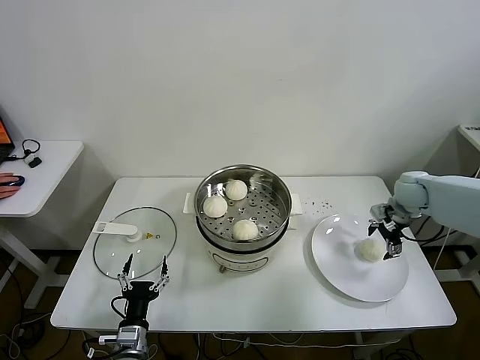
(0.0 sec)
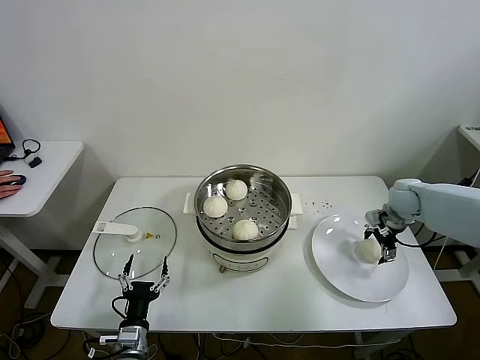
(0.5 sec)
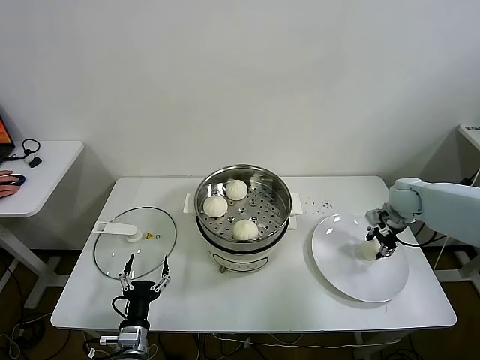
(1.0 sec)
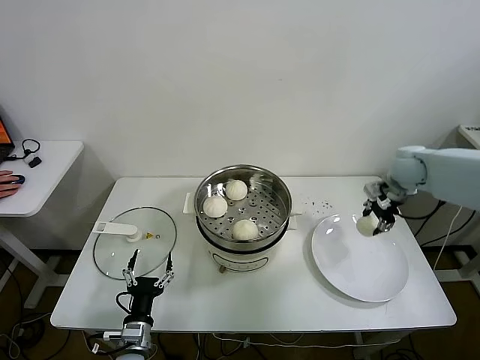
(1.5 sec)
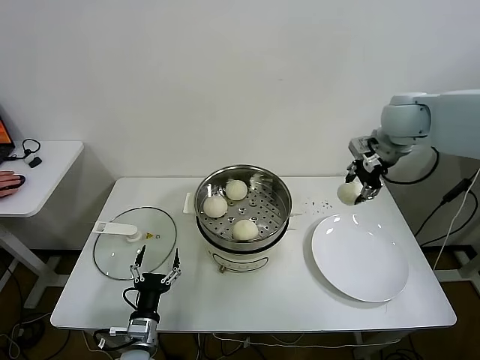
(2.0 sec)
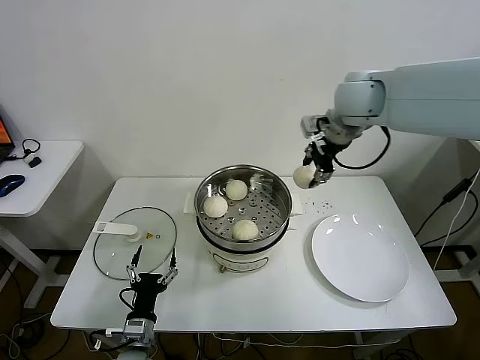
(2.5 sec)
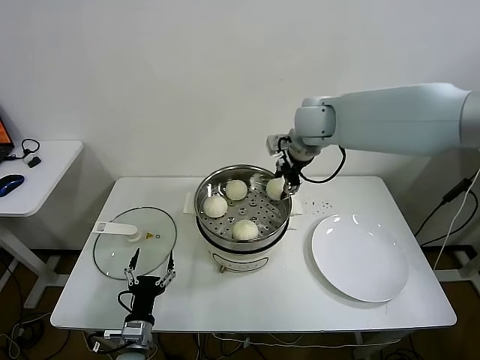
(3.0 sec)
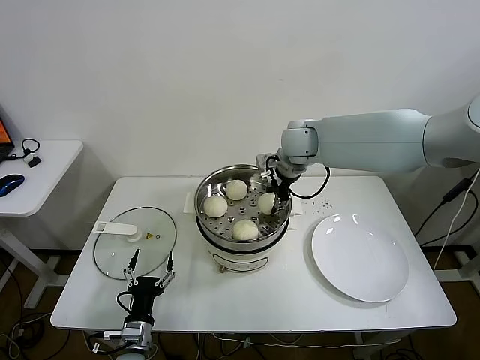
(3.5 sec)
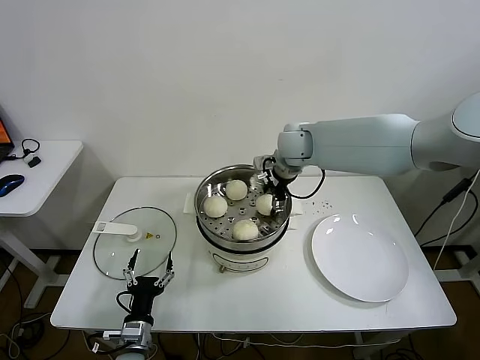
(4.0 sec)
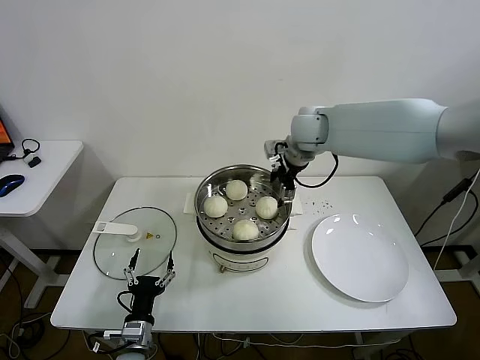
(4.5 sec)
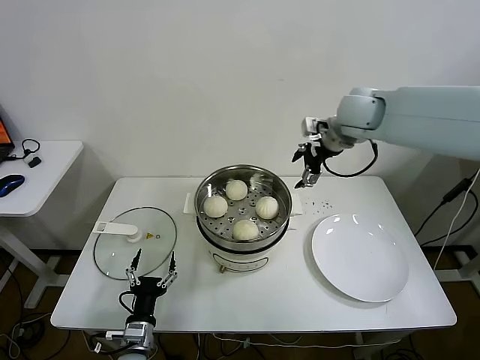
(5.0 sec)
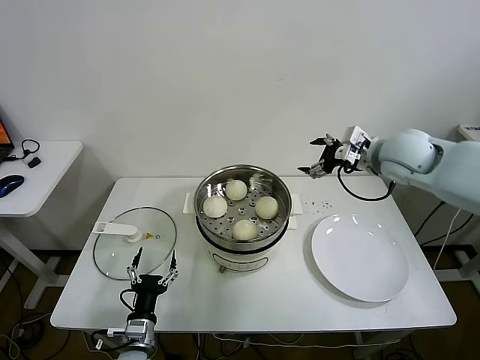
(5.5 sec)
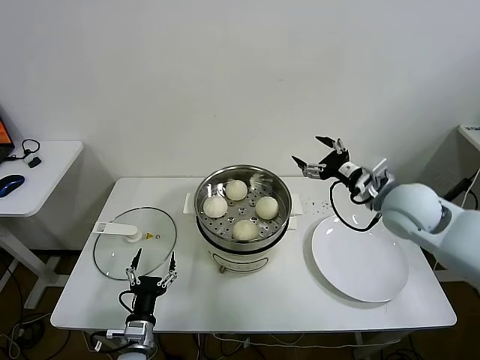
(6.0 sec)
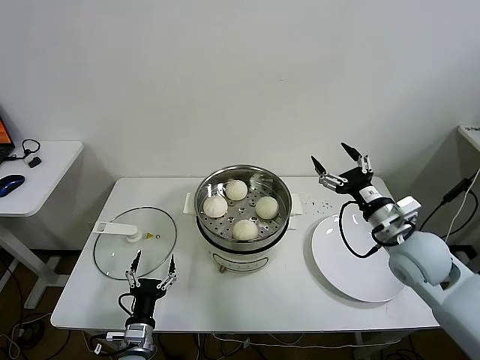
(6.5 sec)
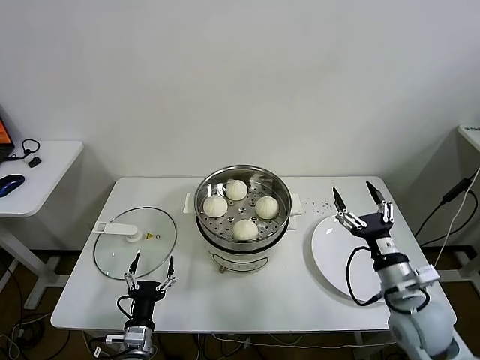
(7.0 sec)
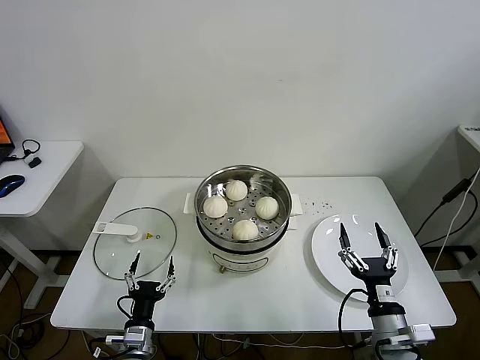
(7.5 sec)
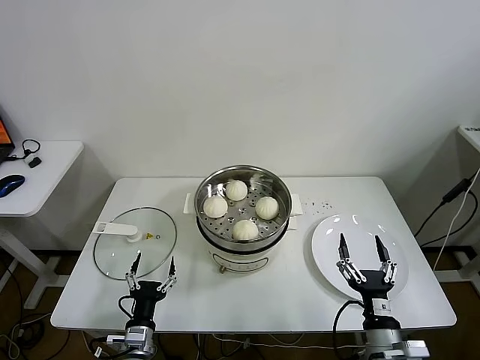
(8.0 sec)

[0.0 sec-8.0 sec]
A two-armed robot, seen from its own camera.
Task of the whole recording: take steamed baozi put them in steamer.
Step, 1.5 sec to 4.0 sec: Place the baozi on the steamer with right gripper.
0.0 sec to 2.0 sec: The right gripper moves upward and to the left, about 25 cm, and closes up.
2.0 sec to 4.0 sec: The right gripper heads to the left and downward, covering roughly 20 cm, and opens.
4.0 sec to 6.0 sec: The right gripper heads to the right and backward, covering some 25 cm, and opens up.
6.0 sec to 8.0 sec: The right gripper is displaced backward and downward by some 35 cm.

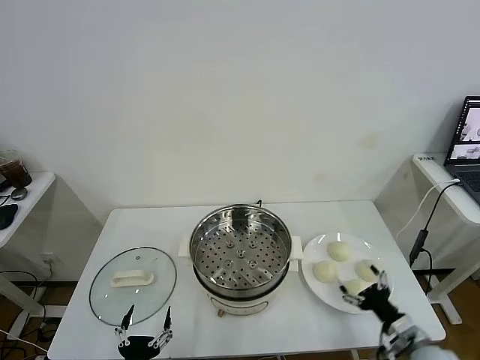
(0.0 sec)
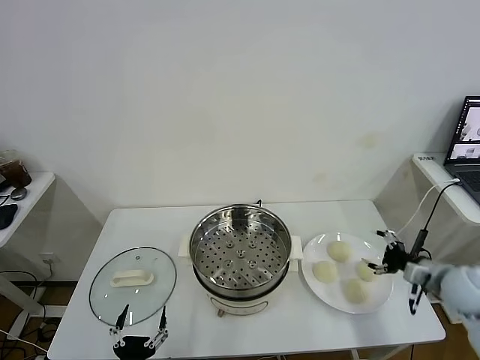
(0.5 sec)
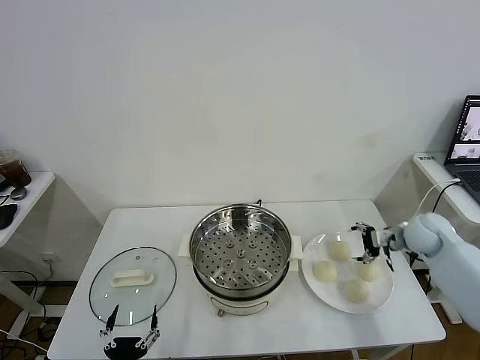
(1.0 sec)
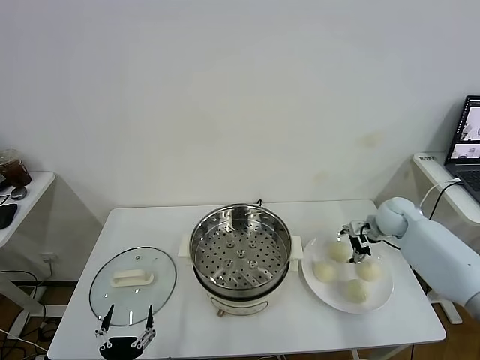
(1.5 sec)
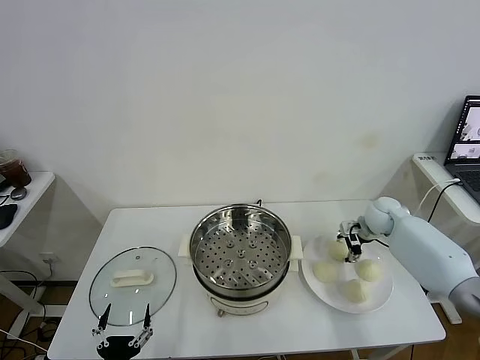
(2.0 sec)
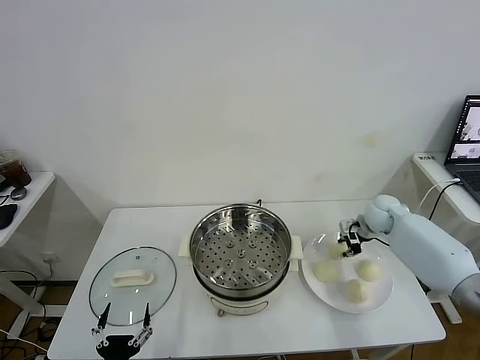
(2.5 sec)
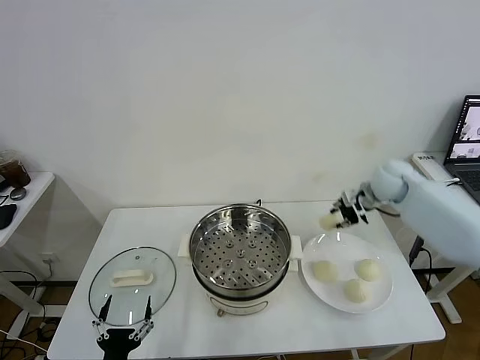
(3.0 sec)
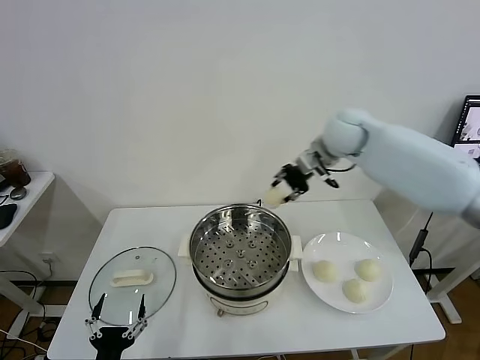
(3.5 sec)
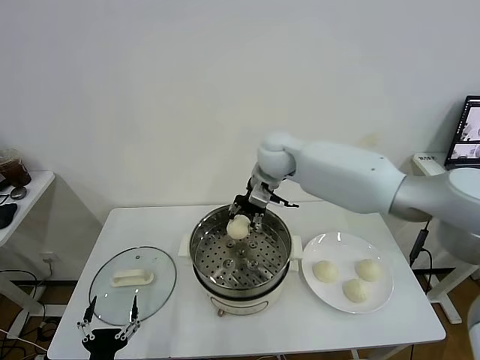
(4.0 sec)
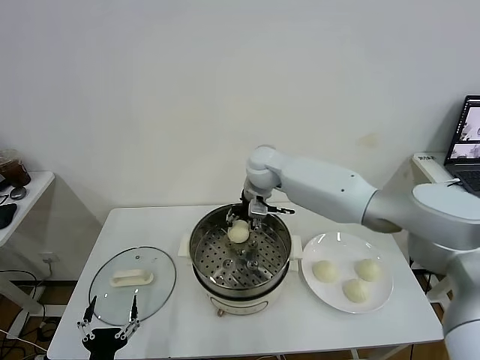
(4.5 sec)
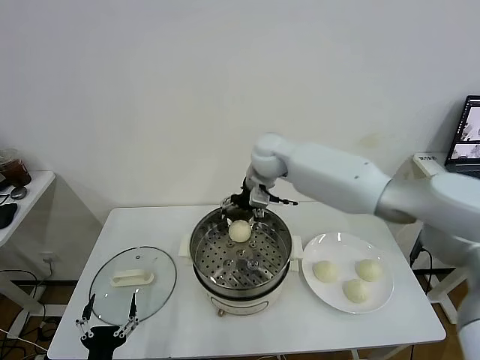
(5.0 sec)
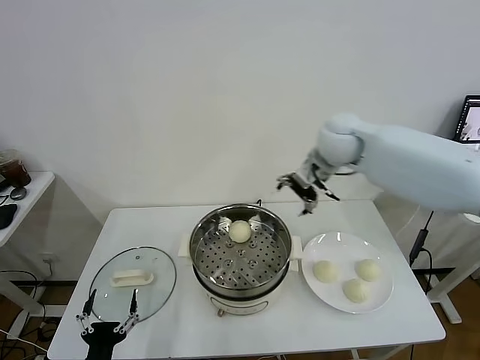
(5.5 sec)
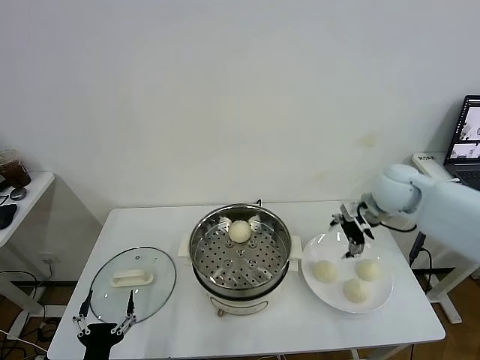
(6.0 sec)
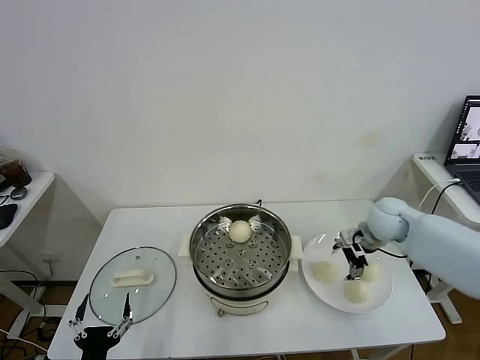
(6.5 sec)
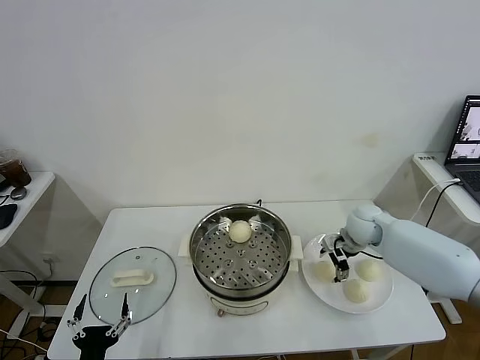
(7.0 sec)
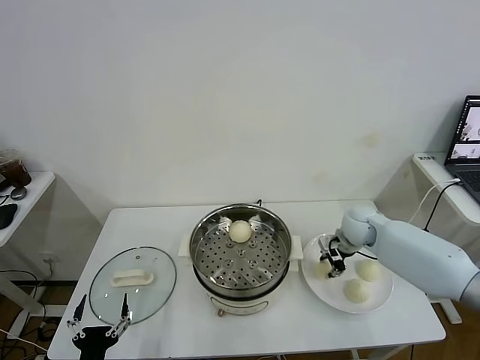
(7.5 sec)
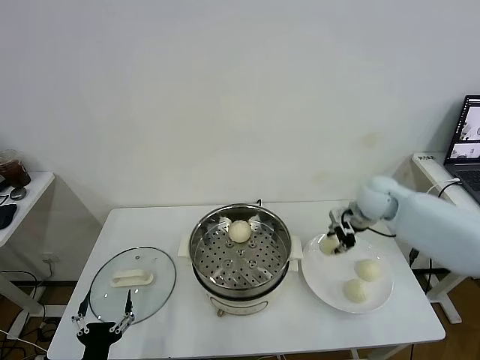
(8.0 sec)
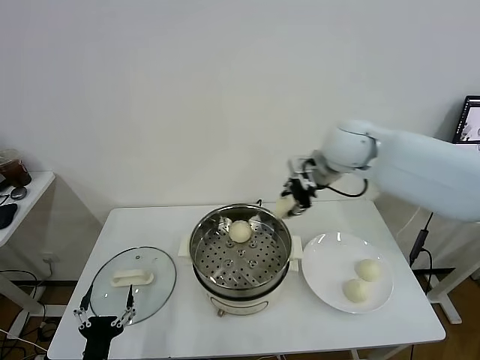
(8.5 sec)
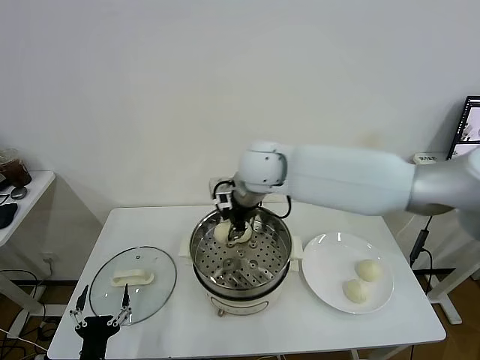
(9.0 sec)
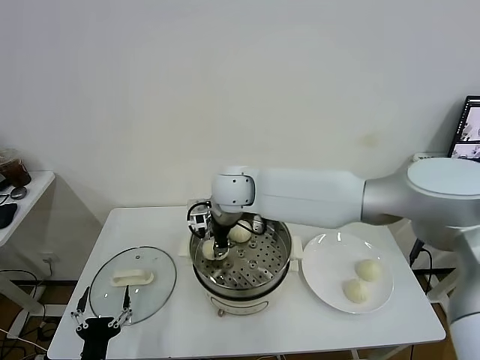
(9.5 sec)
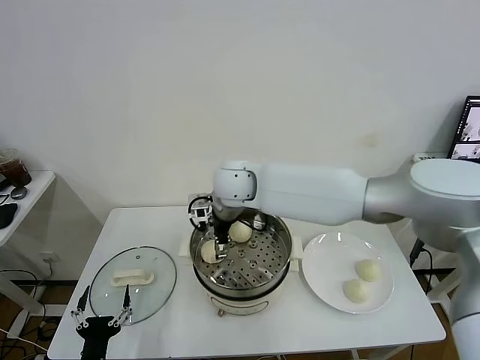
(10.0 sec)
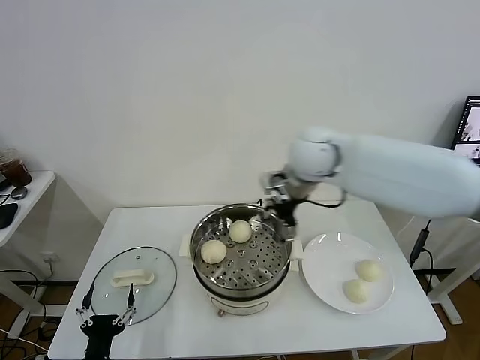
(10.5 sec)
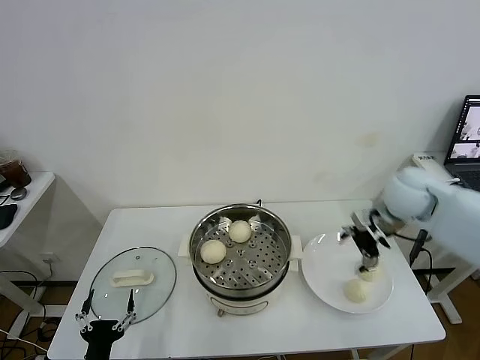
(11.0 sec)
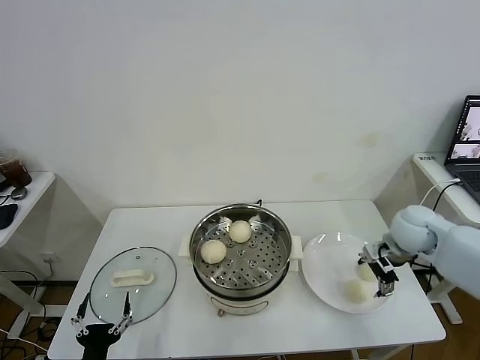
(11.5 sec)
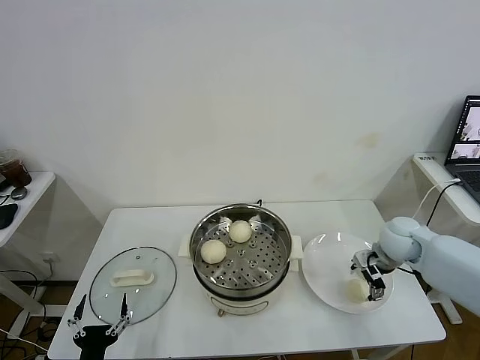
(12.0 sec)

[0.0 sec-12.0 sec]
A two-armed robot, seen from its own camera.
Task of the whole recording: take steamed baozi put them in steamer.
Step, 0.0 sec to 2.0 sec: Grasp the baozi in the plate with right gripper.
Step, 2.5 sec to 4.5 sec: Place the baozi on the steamer with right gripper.
Step, 5.5 sec to 7.5 sec: Grasp the baozi in the plate with right gripper.
Step, 8.0 sec to 10.0 sec: Place the baozi on the steamer with right gripper.
2.0 sec to 4.0 sec: The right gripper moves to the left and upward, some 35 cm, and closes.
4.0 sec to 6.0 sec: The right gripper heads to the right, covering approximately 25 cm, and opens its fingers.
6.0 sec to 8.0 sec: The right gripper moves approximately 15 cm downward and comes back, and closes.
8.0 sec to 10.0 sec: The right gripper shifts some 35 cm to the left, and opens.
10.0 sec to 12.0 sec: The right gripper heads to the right, covering roughly 40 cm.

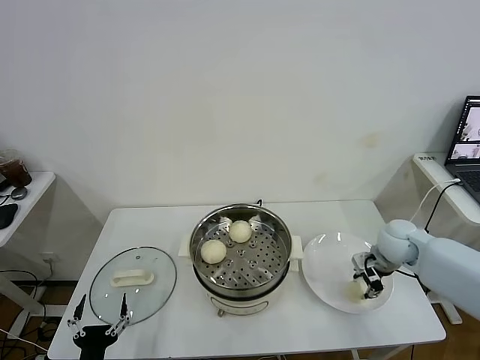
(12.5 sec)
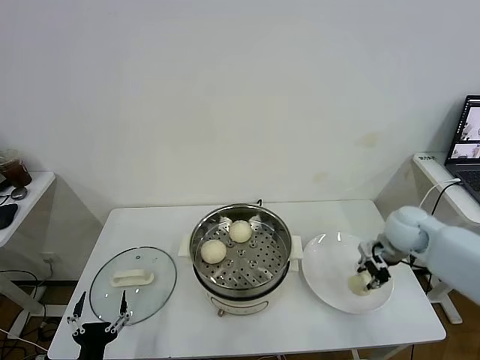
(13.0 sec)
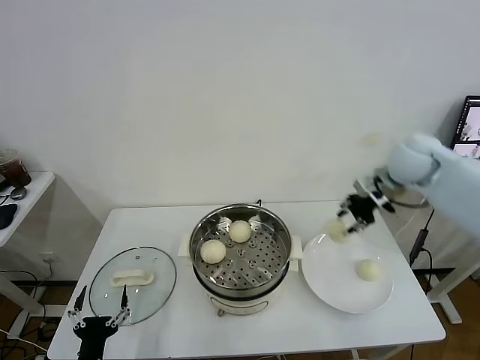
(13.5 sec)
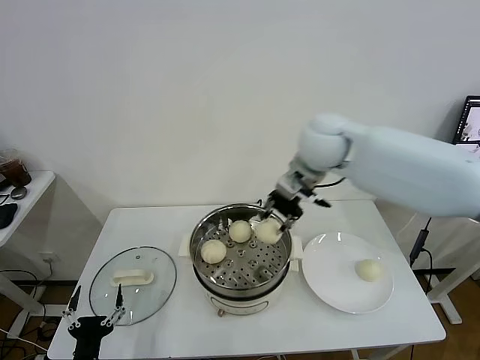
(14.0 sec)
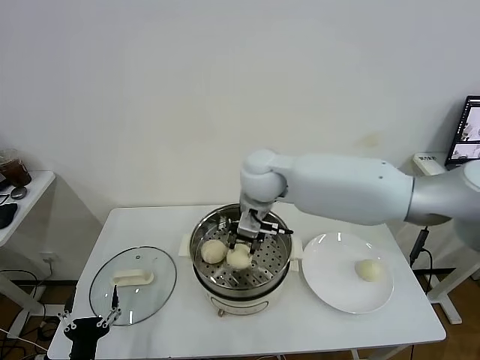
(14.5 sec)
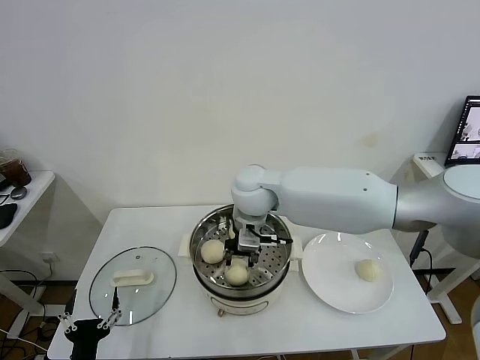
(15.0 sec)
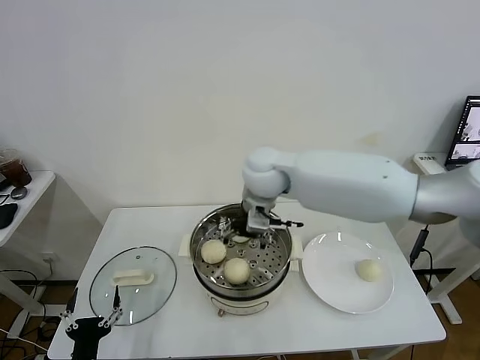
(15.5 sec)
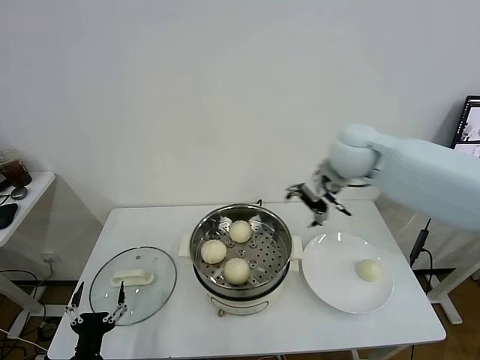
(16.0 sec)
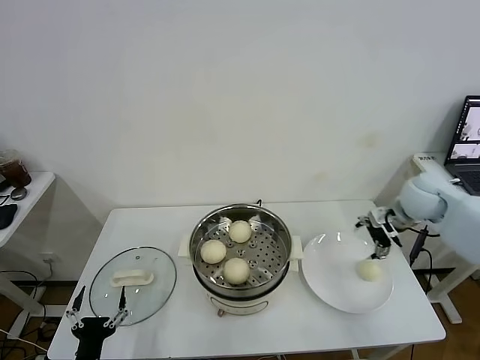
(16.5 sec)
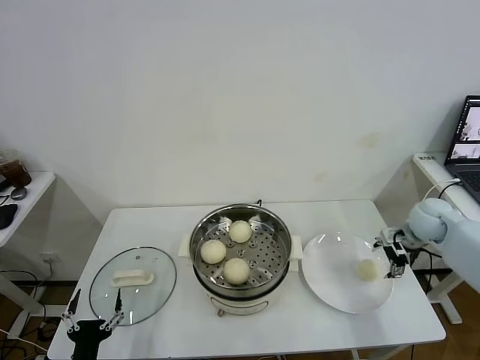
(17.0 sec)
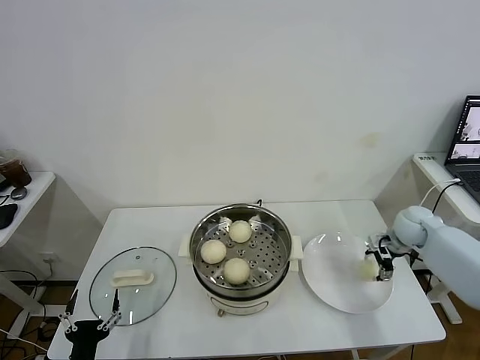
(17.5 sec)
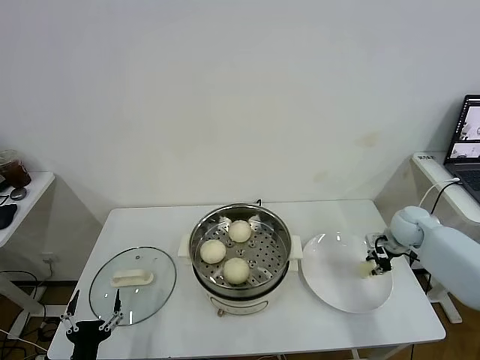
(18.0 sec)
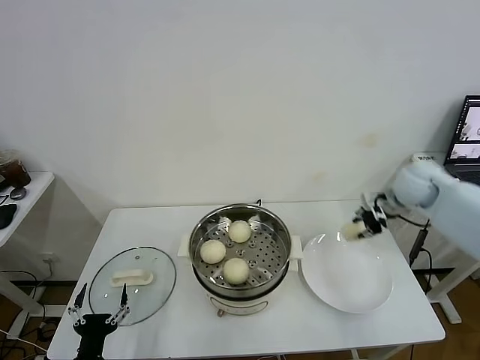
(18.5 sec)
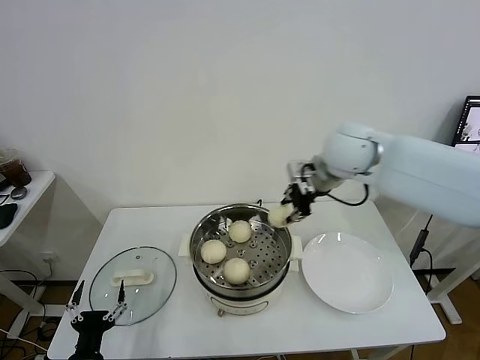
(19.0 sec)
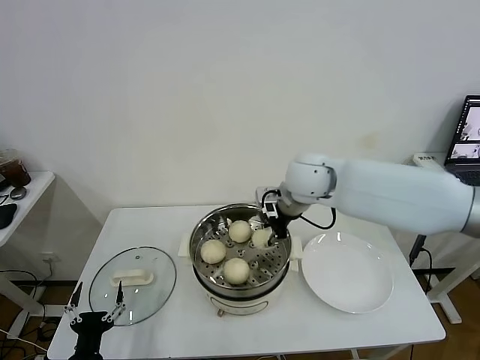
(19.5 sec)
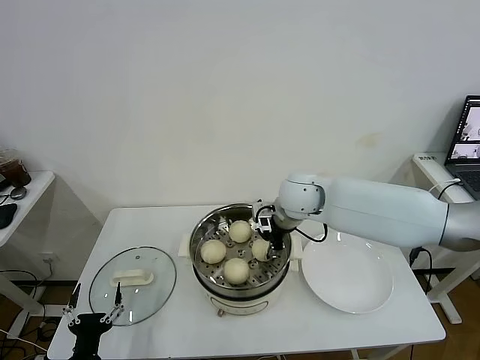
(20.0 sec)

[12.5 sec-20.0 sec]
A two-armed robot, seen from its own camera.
Task of the whole recording: take steamed baozi put them in steamer.
Step, 13.0 sec to 15.0 sec: Place the baozi on the steamer with right gripper.
Step, 15.5 sec to 18.0 sec: Grasp the baozi in the plate with right gripper.
12.5 sec to 14.5 sec: The right gripper shifts about 35 cm to the left and upward.
14.5 sec to 16.5 sec: The right gripper heads to the right, covering about 35 cm, and opens its fingers.
16.5 sec to 18.0 sec: The right gripper shifts approximately 15 cm downward, and closes its fingers.
18.0 sec to 20.0 sec: The right gripper heads to the left and upward, covering about 35 cm.
